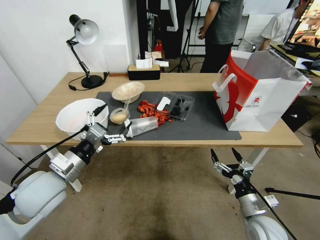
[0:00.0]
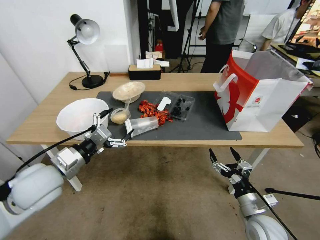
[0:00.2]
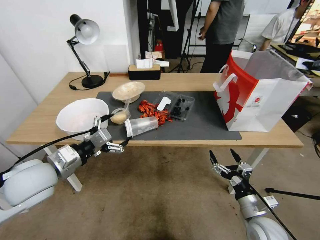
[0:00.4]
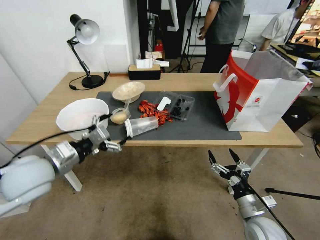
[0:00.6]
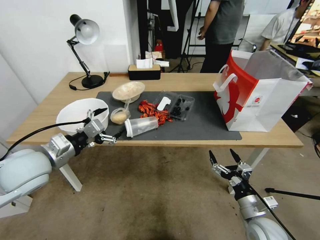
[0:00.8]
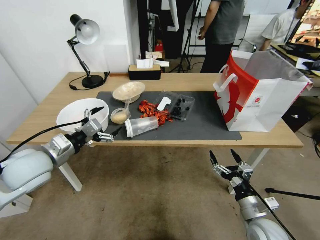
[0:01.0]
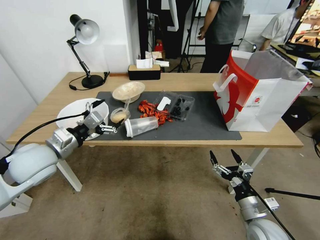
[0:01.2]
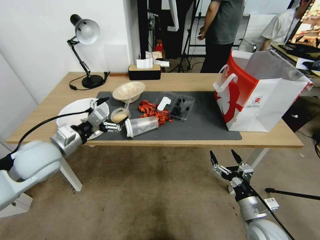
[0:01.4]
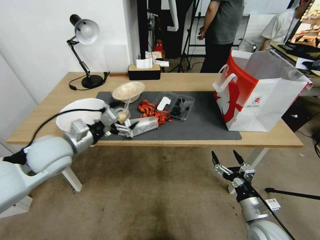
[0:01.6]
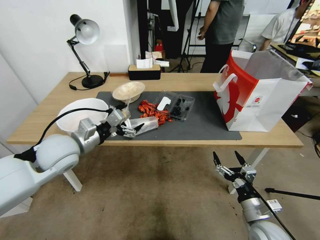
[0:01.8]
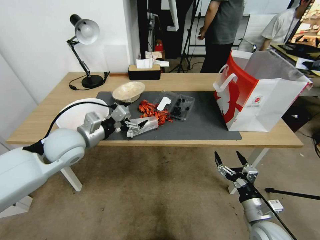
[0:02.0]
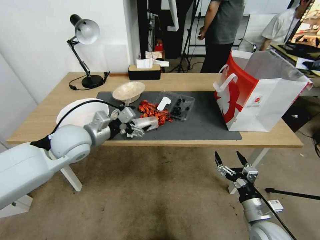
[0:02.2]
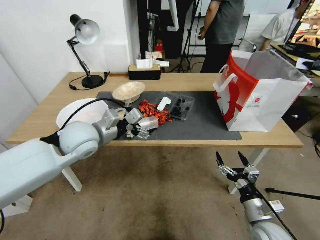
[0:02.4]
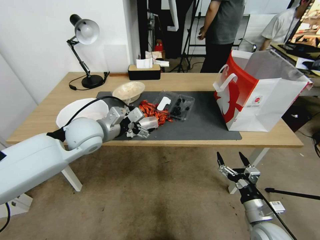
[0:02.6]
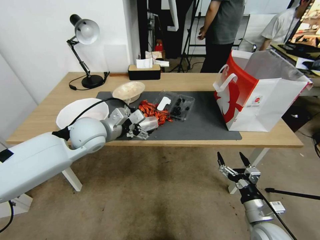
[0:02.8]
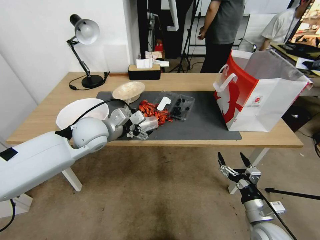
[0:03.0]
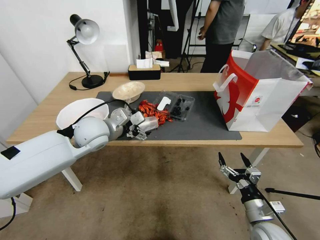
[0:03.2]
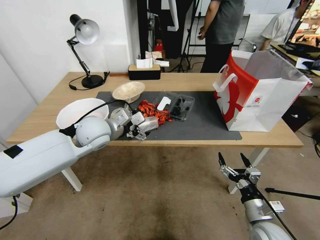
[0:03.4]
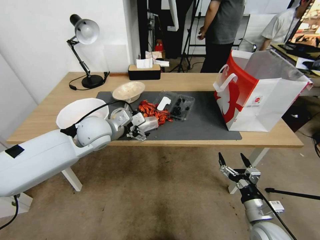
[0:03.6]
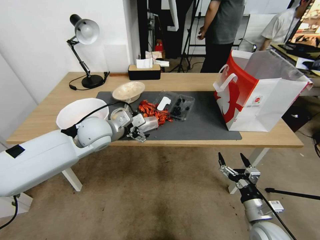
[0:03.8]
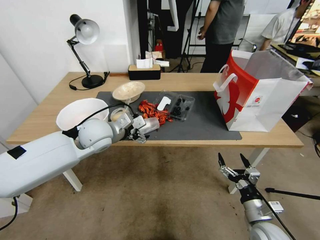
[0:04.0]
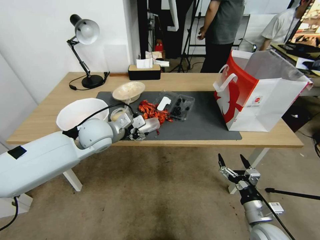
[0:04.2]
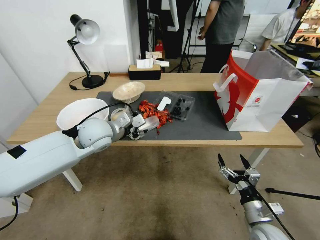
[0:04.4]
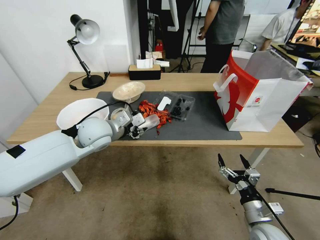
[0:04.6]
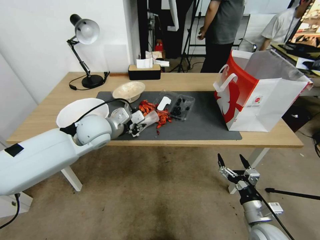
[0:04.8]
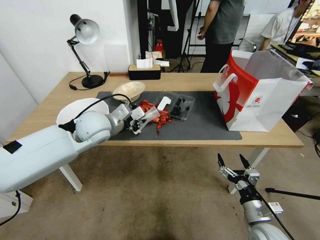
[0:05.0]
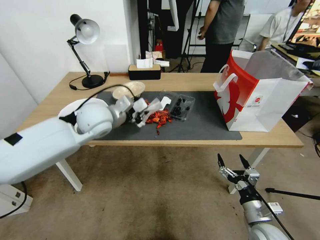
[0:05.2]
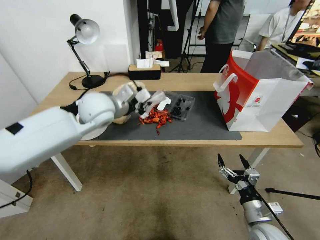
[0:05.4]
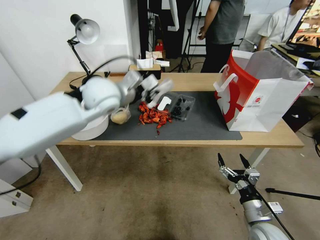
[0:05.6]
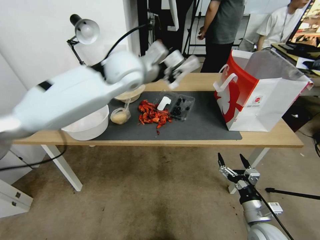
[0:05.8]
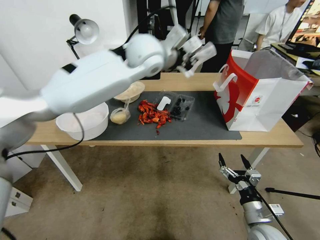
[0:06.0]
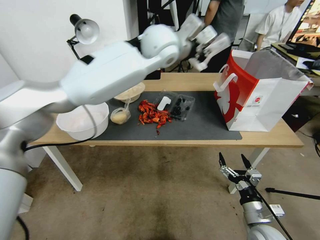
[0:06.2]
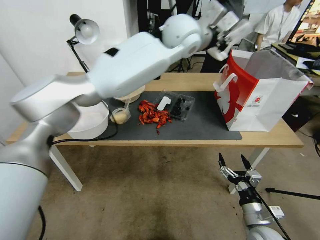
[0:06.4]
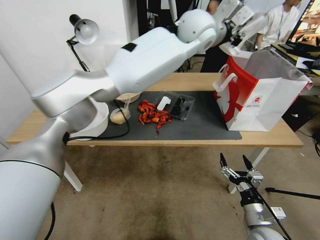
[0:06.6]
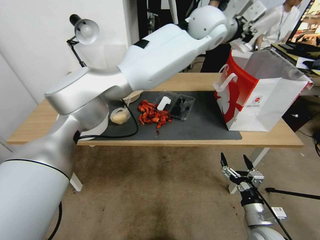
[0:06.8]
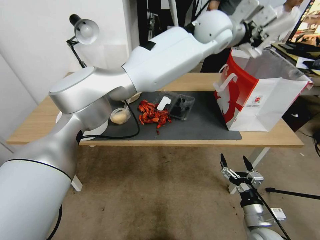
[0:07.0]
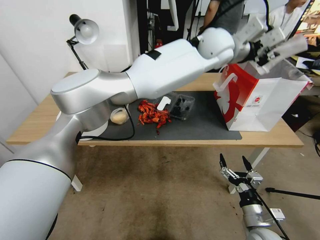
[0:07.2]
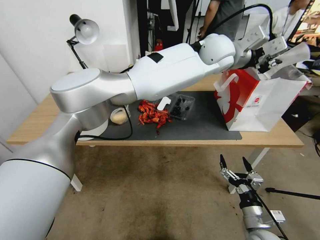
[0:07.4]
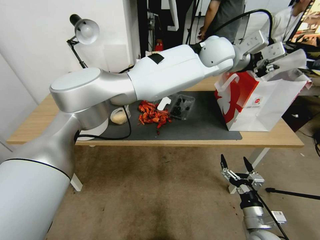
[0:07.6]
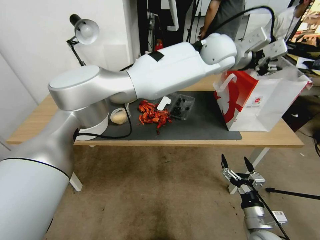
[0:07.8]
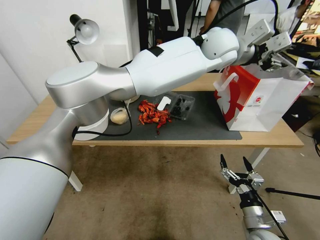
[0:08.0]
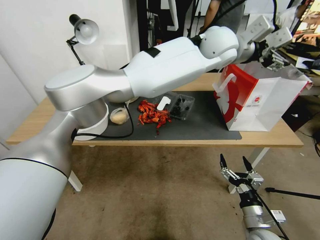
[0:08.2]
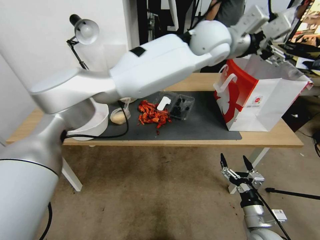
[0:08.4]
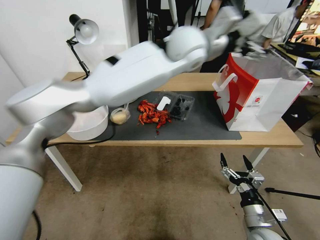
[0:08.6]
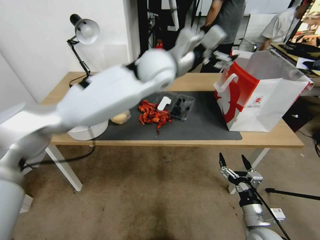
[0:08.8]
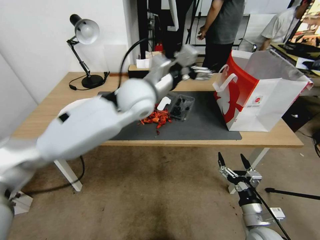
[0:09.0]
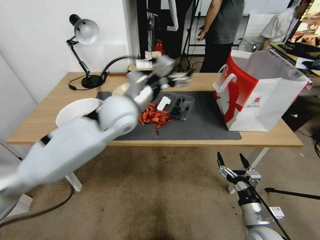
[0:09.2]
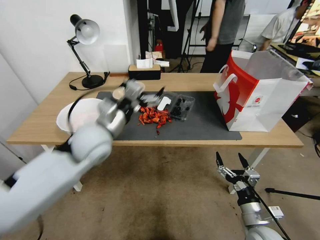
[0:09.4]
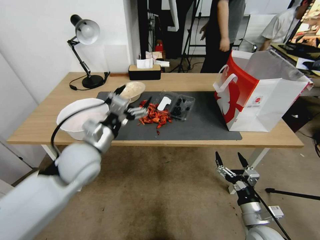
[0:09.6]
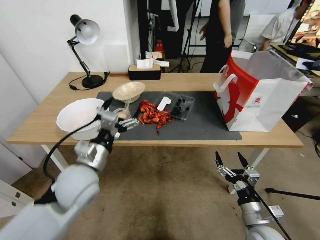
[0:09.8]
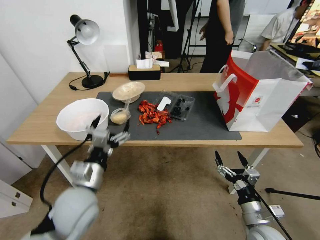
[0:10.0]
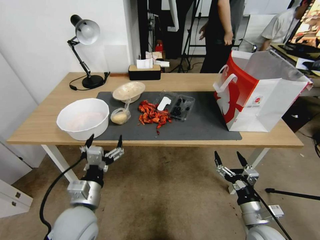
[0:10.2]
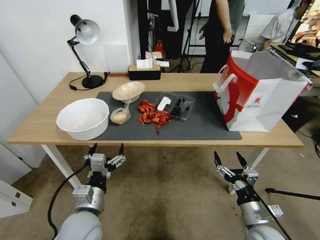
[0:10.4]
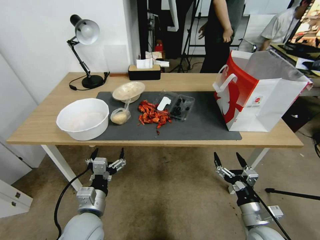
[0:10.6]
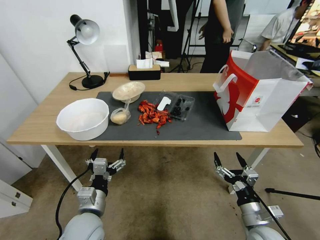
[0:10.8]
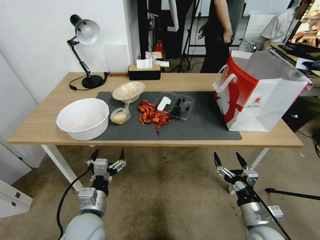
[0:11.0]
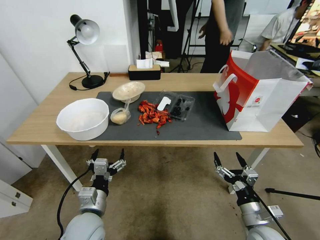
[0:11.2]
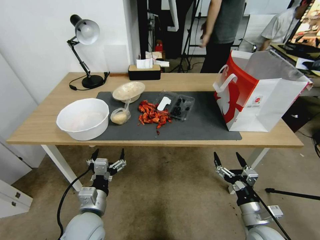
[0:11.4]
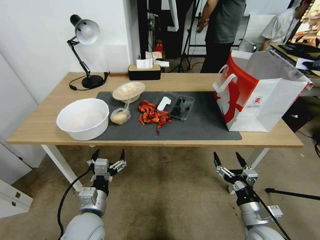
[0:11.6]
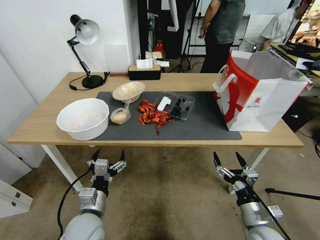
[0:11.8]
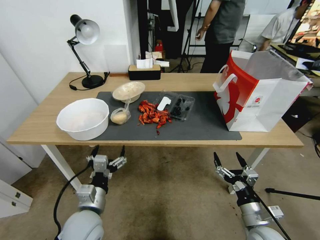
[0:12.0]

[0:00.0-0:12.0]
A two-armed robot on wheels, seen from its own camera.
0:00.0 to 0:01.6: The left gripper goes roughly 10 cm forward.
0:01.6 to 0:03.0: The left gripper shifts some 10 cm to the right and forward.
0:03.0 to 0:04.4: The left gripper closes up.
0:04.4 to 0:06.0: The left gripper shifts some 25 cm upward, to the right and forward, and closes.
0:06.0 to 0:07.6: The left gripper is displaced to the right by some 20 cm.
0:07.6 to 0:09.0: The left gripper heads to the left and backward, covering about 25 cm, and opens.
0:09.0 to 0:10.4: The left gripper travels downward, backward and to the left by approximately 35 cm.
0:10.4 to 0:12.0: The grippers stay close to where they were, moving slightly.

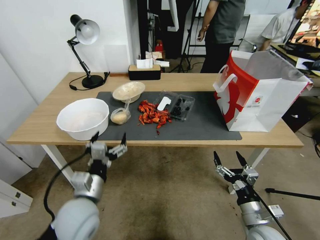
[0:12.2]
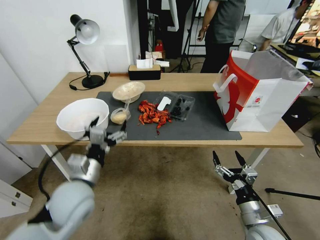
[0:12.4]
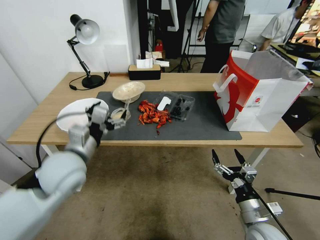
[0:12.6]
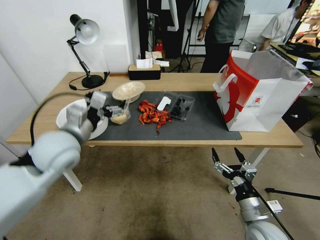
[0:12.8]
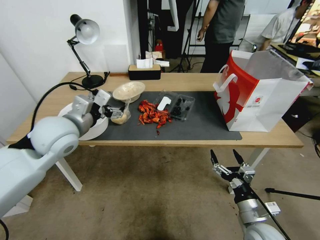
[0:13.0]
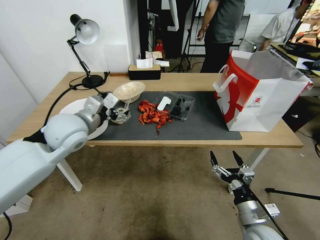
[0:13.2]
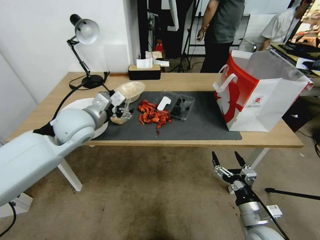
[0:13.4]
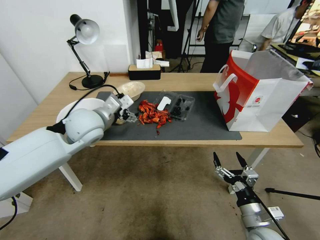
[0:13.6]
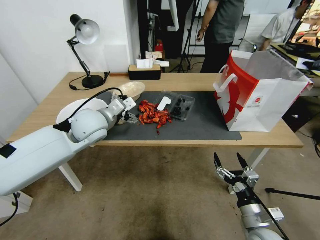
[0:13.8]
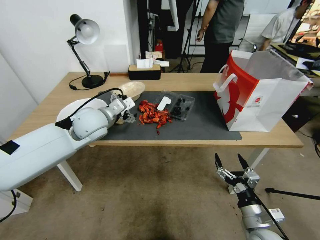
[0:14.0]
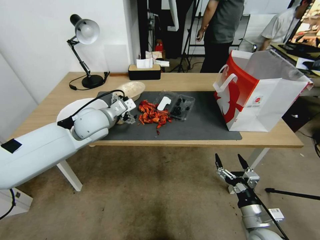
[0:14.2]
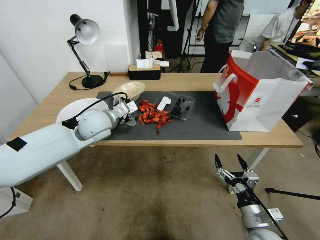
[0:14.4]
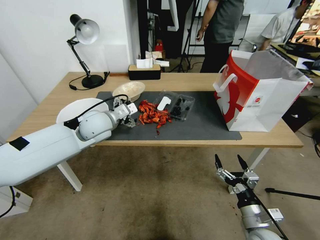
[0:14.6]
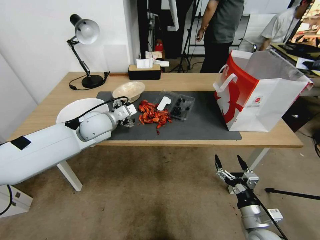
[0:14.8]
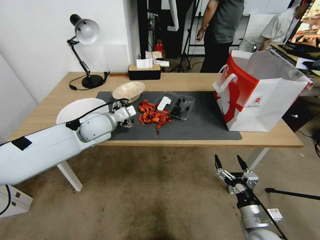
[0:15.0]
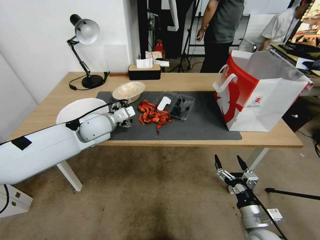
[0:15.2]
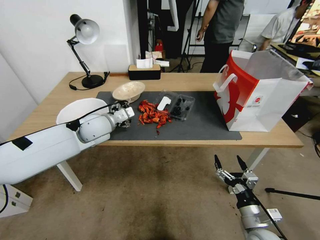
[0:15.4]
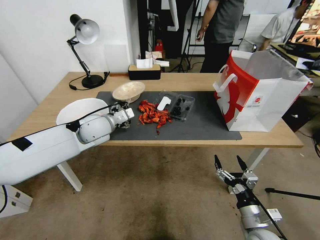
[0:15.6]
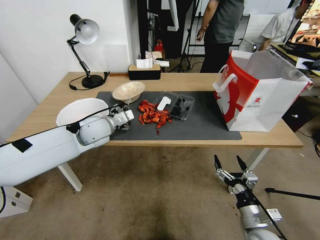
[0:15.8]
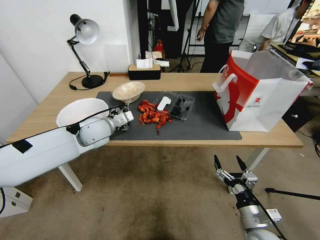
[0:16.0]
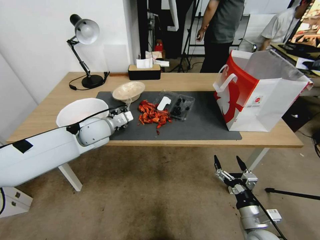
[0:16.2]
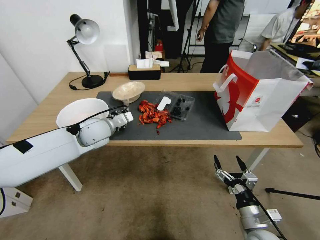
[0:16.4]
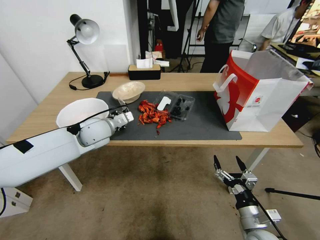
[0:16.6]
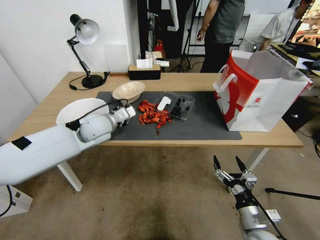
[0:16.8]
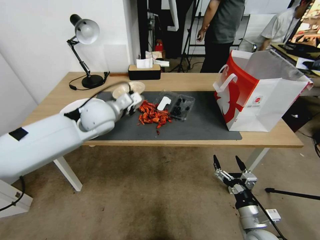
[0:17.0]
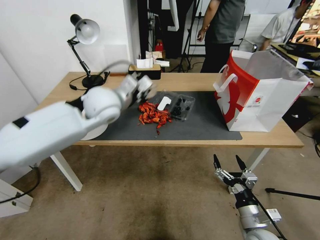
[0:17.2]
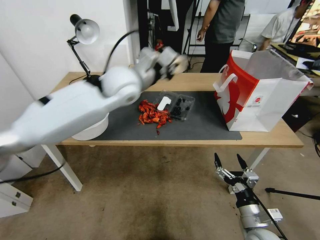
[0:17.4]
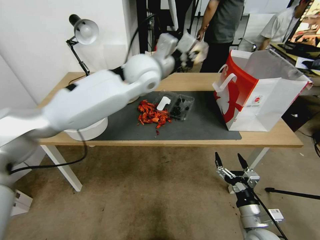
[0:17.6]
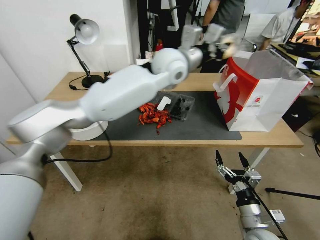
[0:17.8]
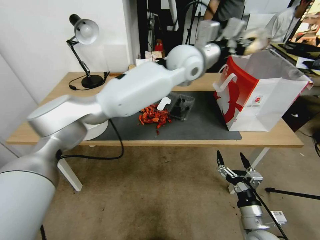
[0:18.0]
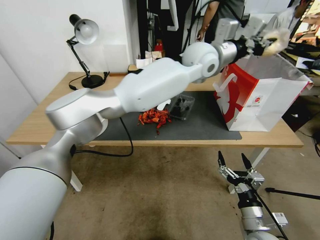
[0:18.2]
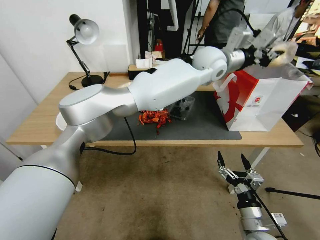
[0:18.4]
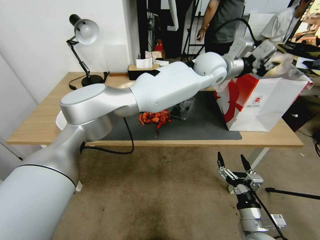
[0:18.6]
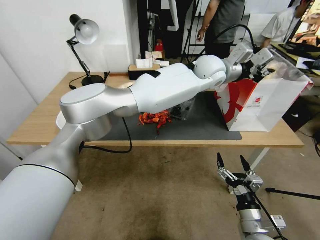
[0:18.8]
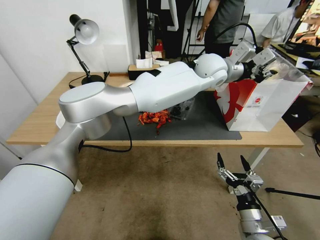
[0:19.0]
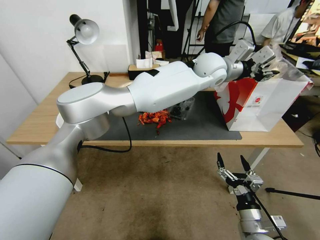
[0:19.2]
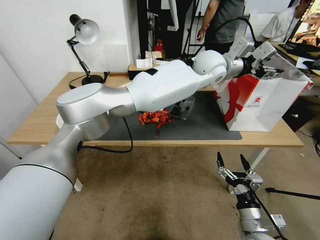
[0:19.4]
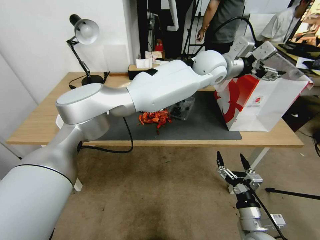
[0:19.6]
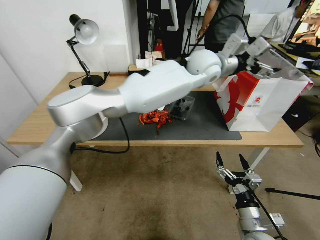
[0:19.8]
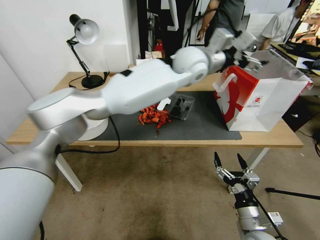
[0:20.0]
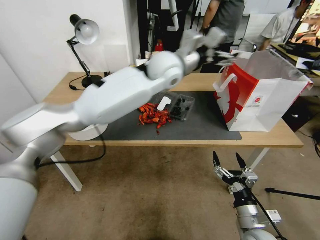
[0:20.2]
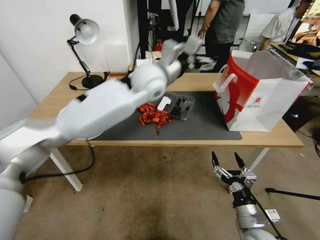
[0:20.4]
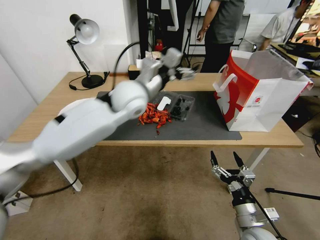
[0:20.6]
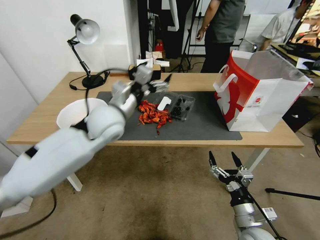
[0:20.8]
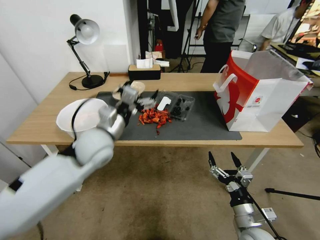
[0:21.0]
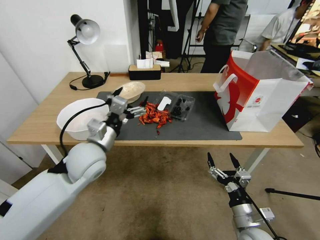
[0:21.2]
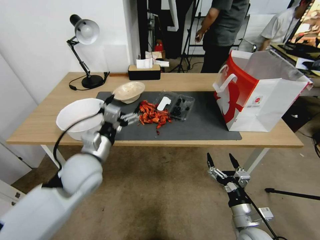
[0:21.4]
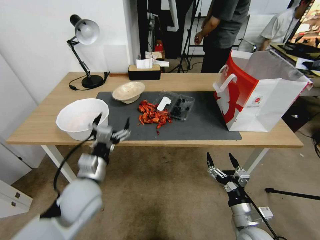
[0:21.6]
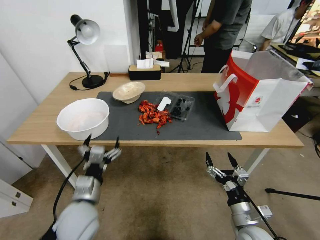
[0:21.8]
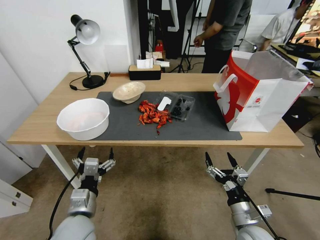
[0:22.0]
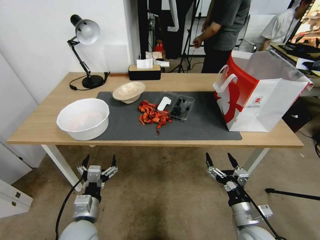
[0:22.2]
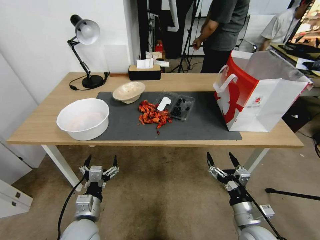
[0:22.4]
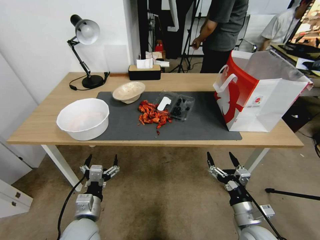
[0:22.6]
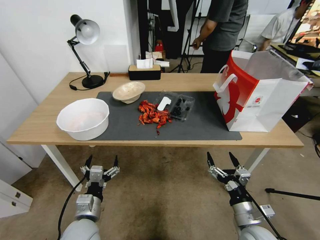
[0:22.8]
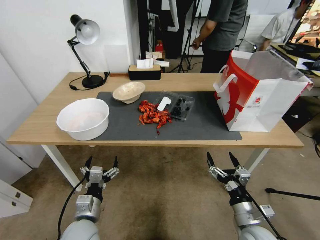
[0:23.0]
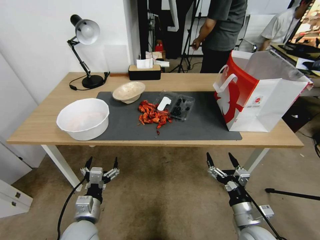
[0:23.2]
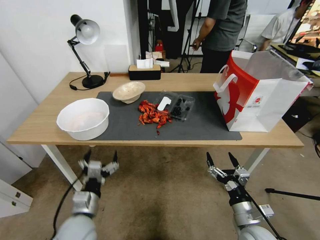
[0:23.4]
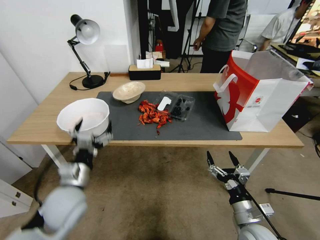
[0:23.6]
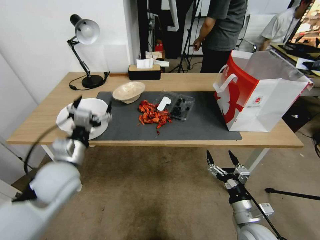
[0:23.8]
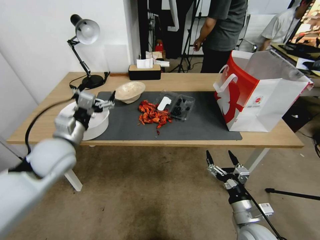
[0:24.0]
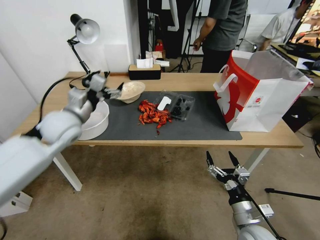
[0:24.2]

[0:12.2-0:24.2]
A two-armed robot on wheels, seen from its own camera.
0:12.2 to 0:13.8: The left gripper goes some 25 cm forward and upward.
0:13.8 to 0:15.2: The left gripper changes place by about 5 cm.
0:15.2 to 0:16.6: The left gripper closes up.
0:16.6 to 0:18.2: The left gripper is displaced to the right and upward by about 40 cm.
0:18.2 to 0:19.8: The left gripper opens its fingers.
0:19.8 to 0:21.2: The left gripper goes some 40 cm to the left, backward and downward.
0:21.2 to 0:22.6: The left gripper is displaced downward and backward by about 25 cm.
0:22.6 to 0:24.2: The left gripper travels upward and forward by approximately 30 cm.
